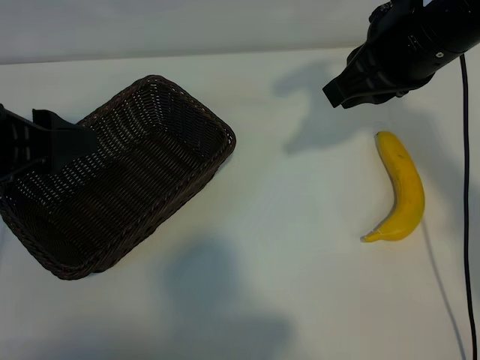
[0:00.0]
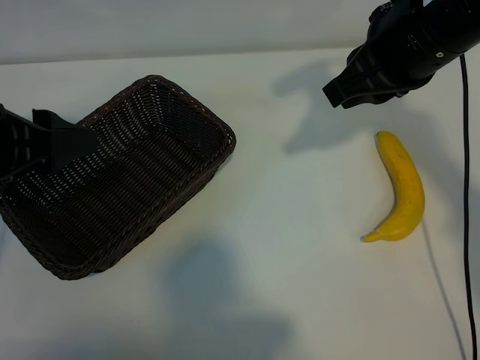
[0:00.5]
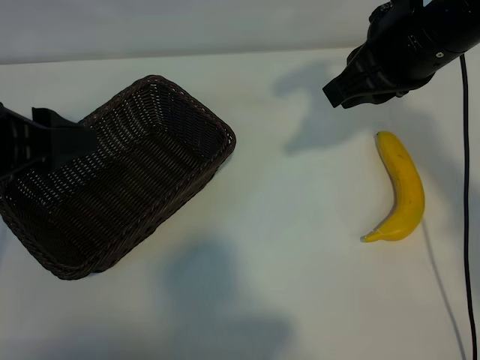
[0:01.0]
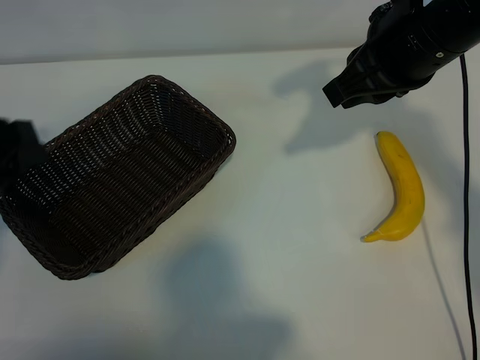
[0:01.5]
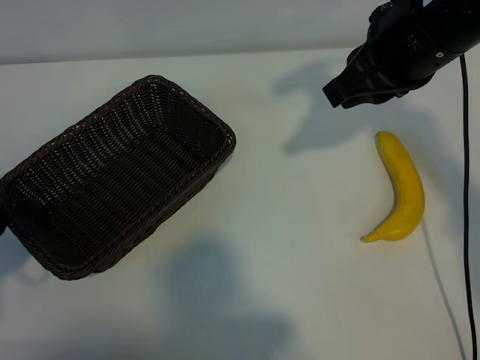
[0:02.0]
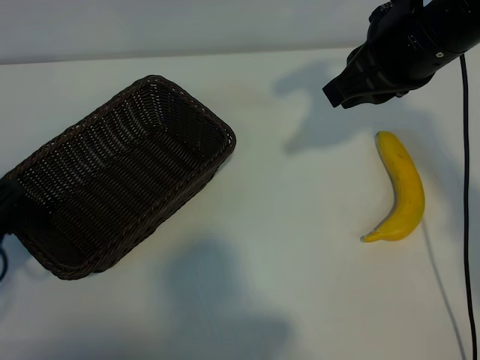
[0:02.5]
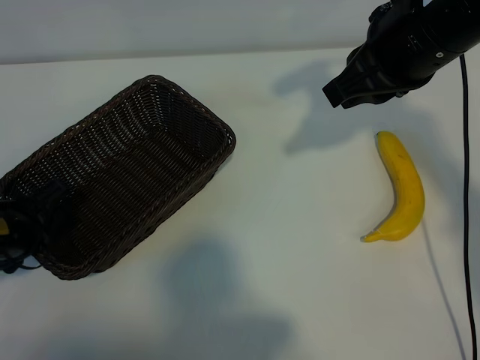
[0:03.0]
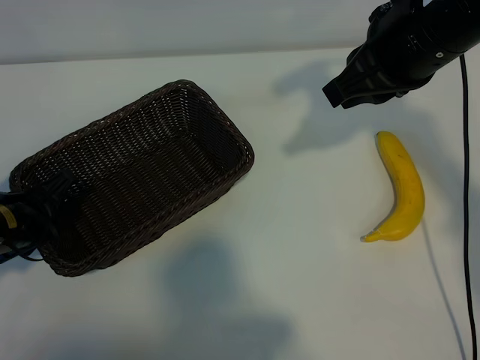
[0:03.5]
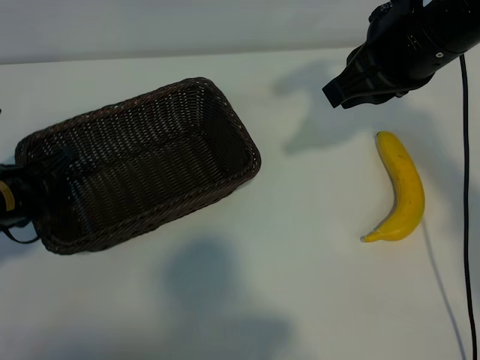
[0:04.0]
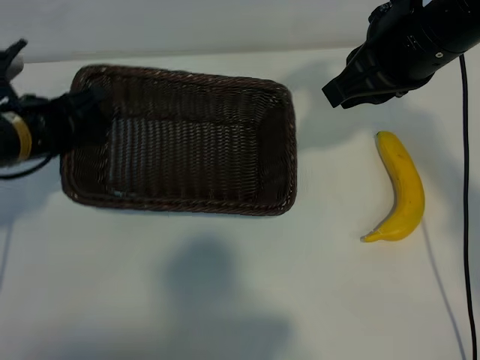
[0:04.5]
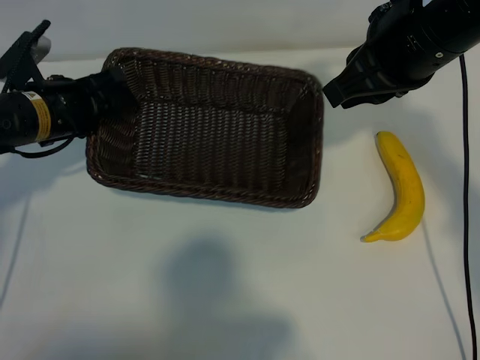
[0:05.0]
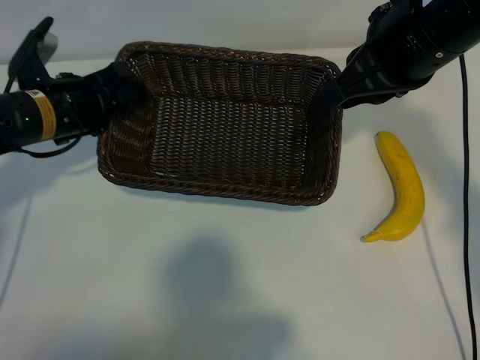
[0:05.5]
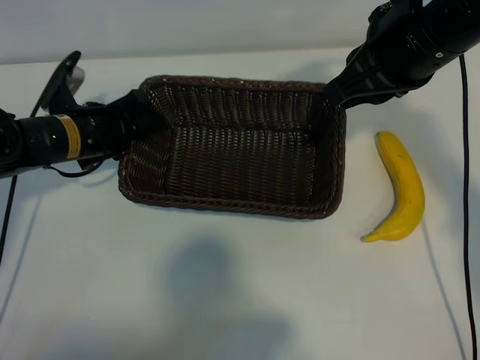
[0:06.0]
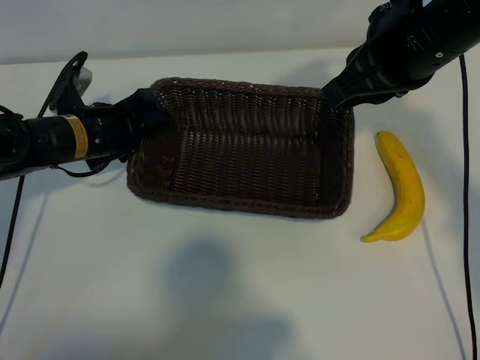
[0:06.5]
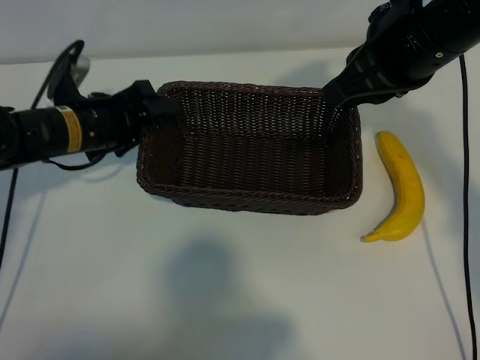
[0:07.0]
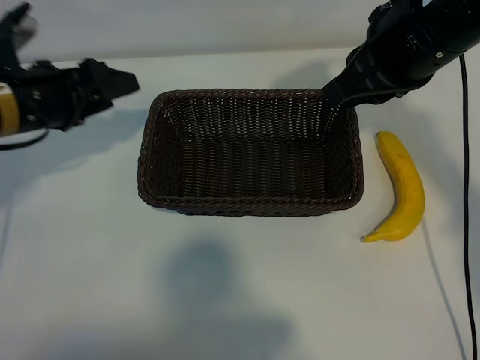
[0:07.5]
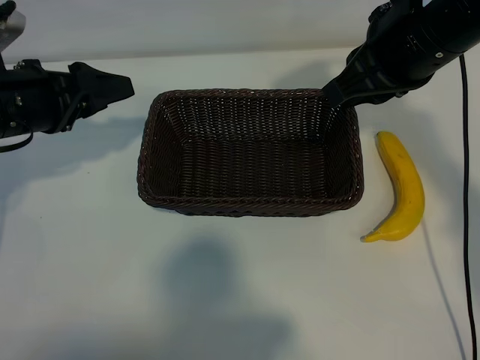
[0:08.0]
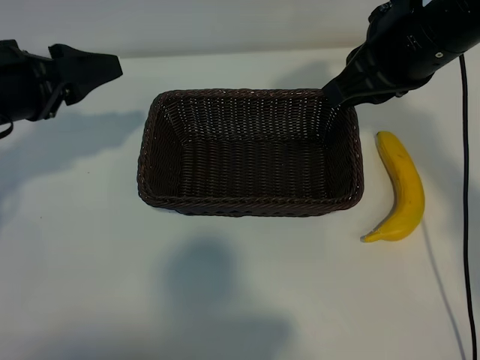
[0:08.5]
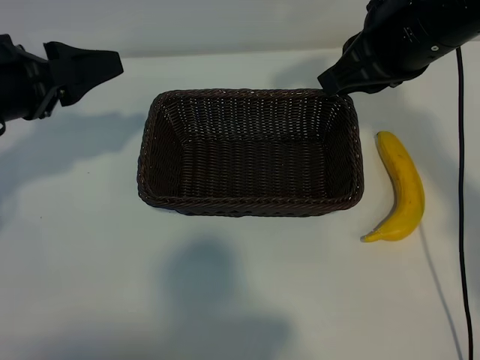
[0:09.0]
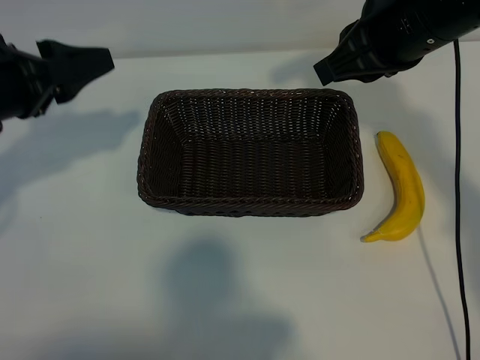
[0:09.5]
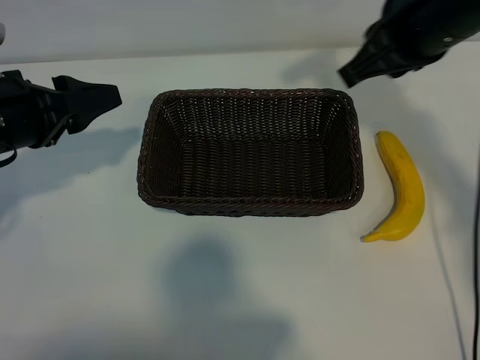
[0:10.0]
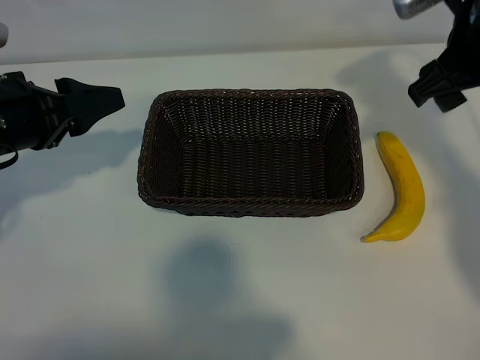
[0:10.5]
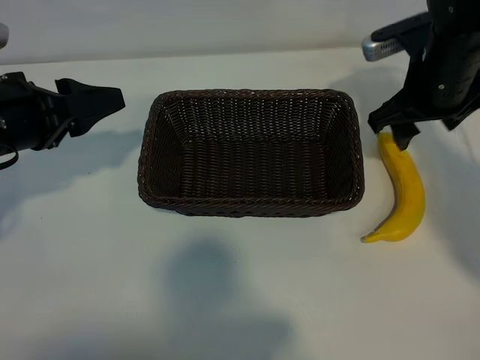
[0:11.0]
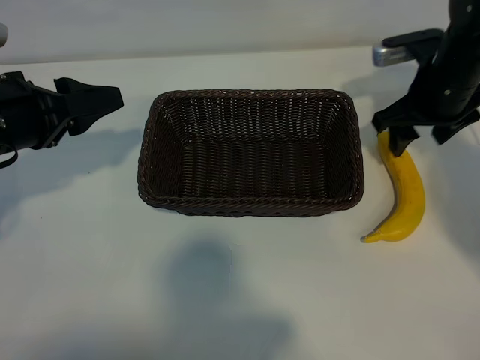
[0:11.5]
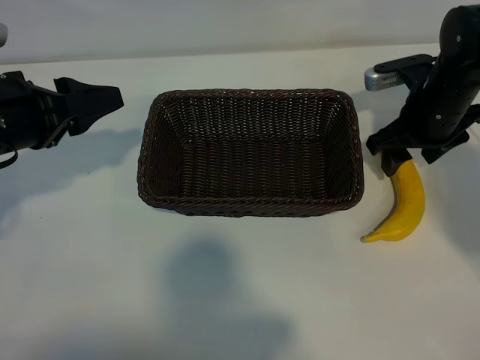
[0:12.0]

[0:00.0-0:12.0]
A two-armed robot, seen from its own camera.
Task of the whole recording: pick up the banana and put it into the basket.
Step, 0:01.0 to 0:03.0: Grasp the basket with the left gripper.
Step, 0:04.0 to 0:07.0: Place the basket in the center of the table with the left gripper.

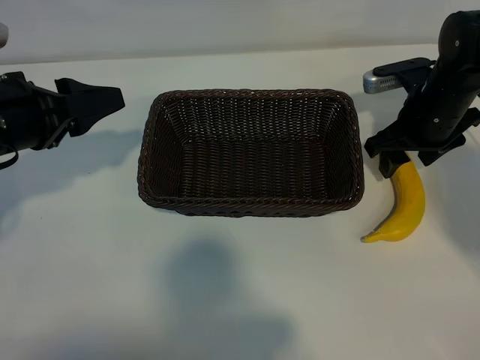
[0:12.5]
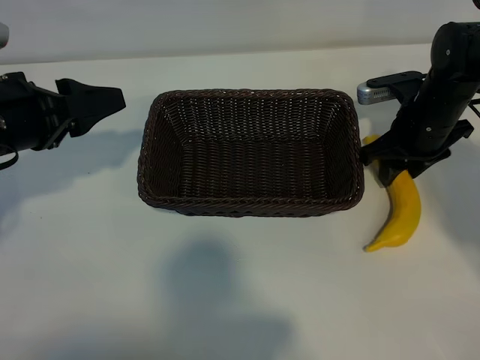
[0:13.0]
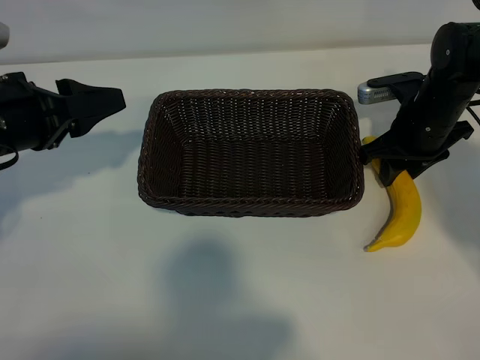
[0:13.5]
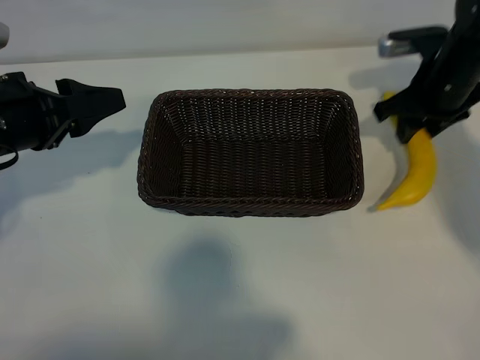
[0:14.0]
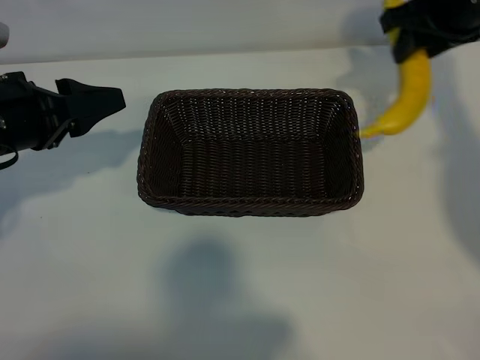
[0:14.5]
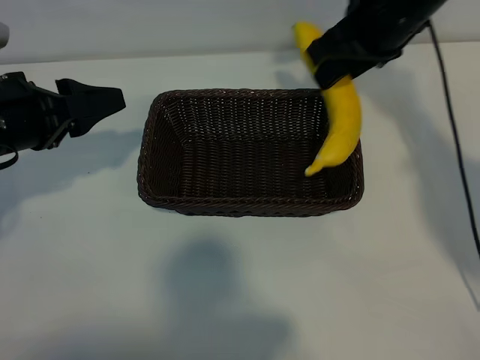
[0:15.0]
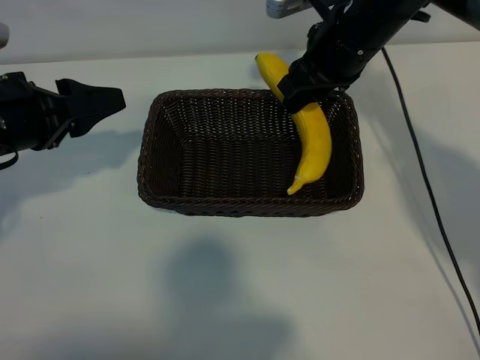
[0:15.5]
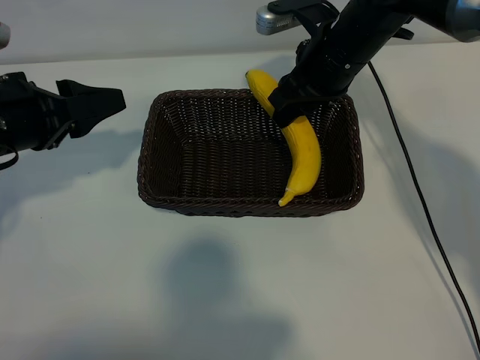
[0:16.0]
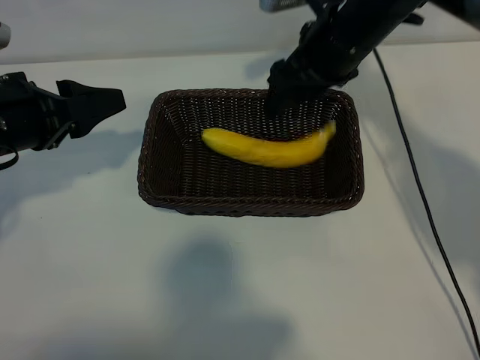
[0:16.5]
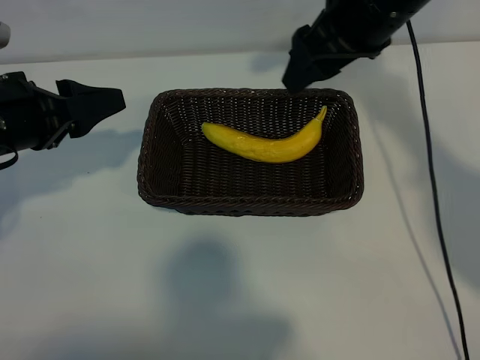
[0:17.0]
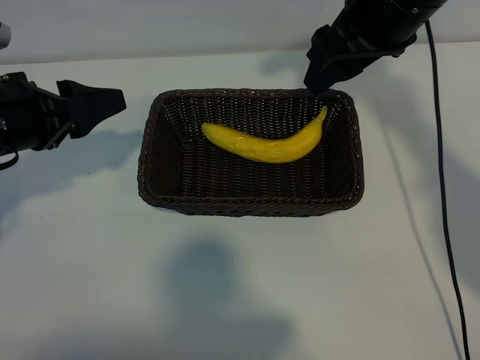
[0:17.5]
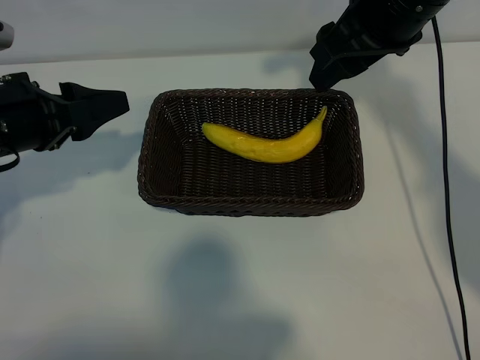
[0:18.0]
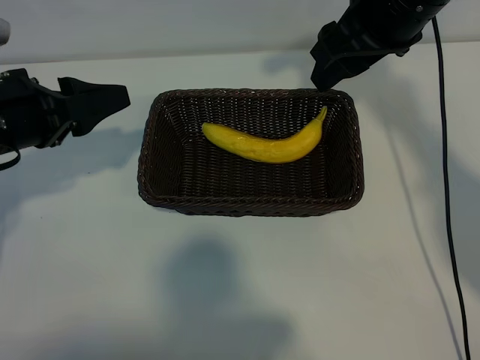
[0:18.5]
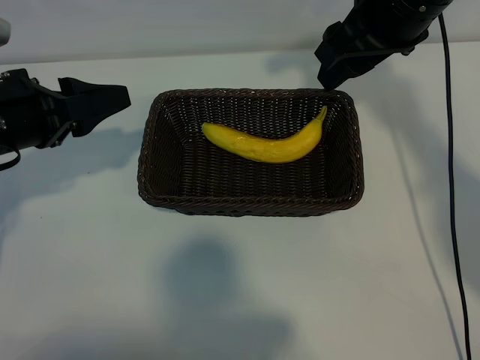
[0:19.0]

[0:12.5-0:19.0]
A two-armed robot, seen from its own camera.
Task of the whole recording: pick up the banana and put it into the basket.
Step, 0:13.5 to 0:16.0: Place the banana in the basket with right gripper.

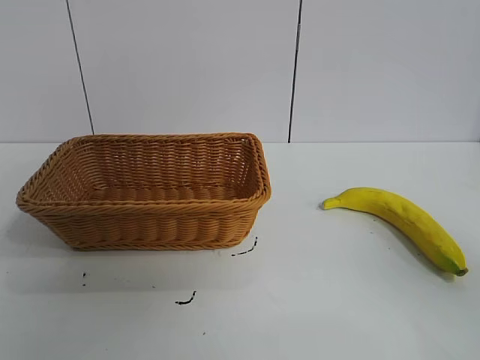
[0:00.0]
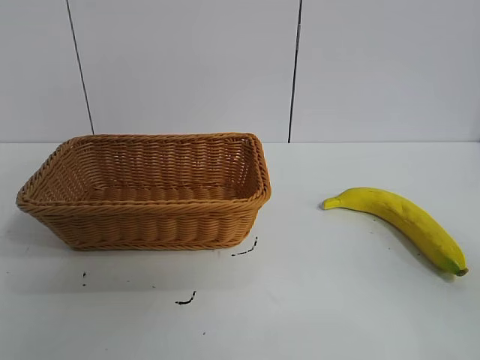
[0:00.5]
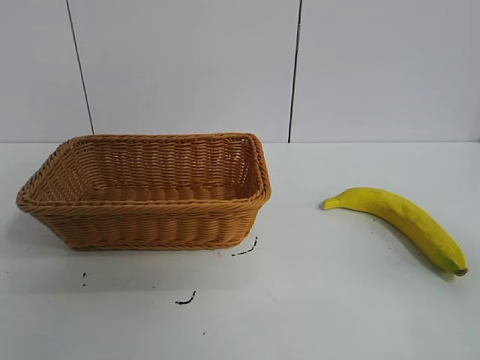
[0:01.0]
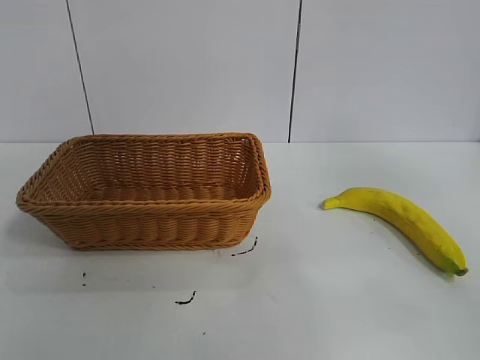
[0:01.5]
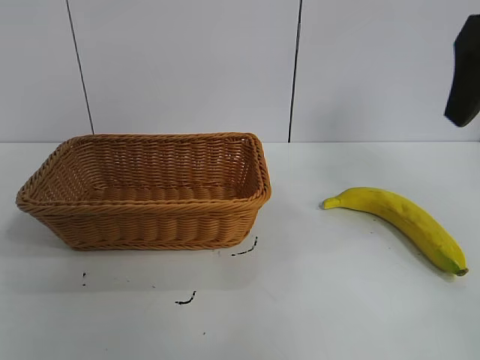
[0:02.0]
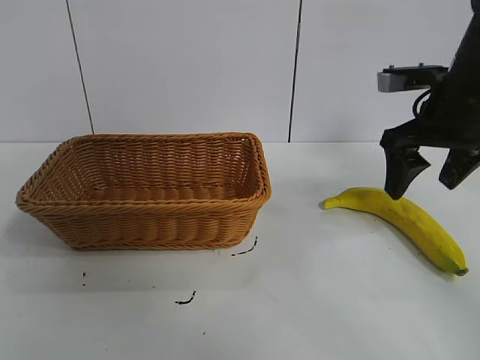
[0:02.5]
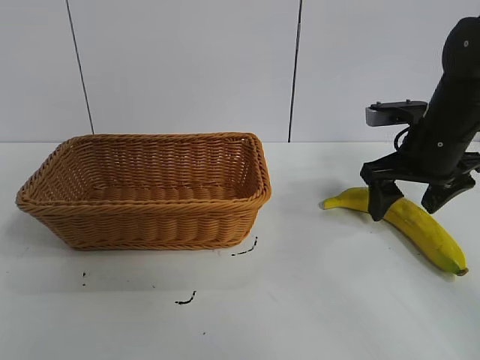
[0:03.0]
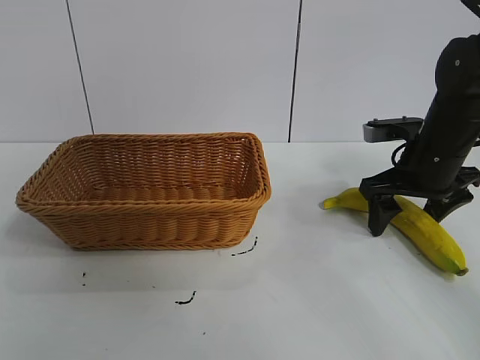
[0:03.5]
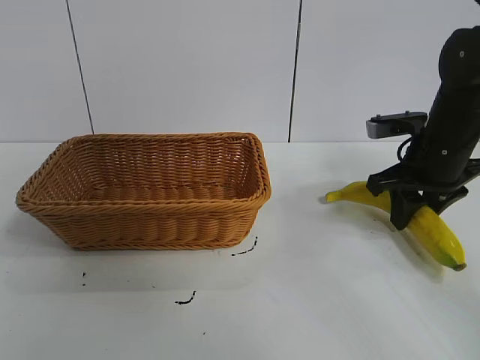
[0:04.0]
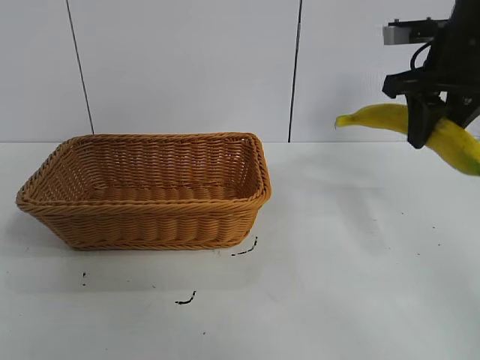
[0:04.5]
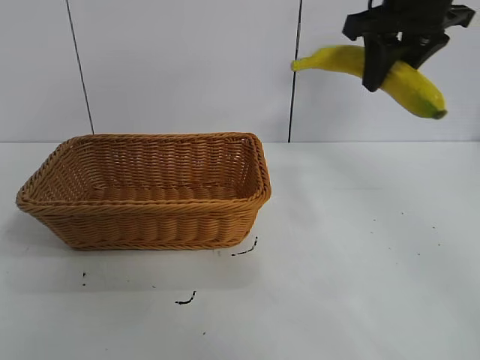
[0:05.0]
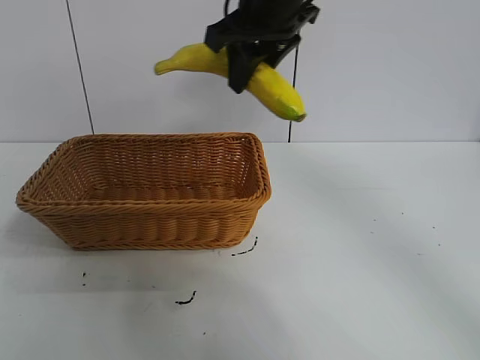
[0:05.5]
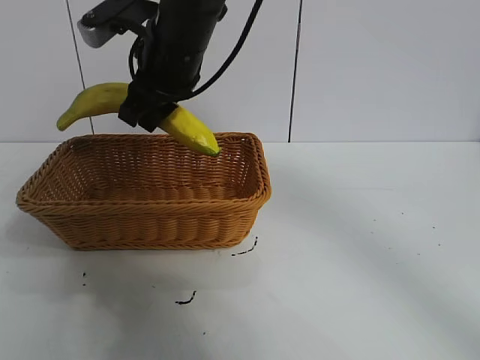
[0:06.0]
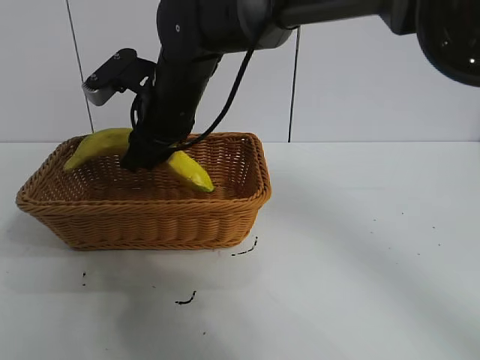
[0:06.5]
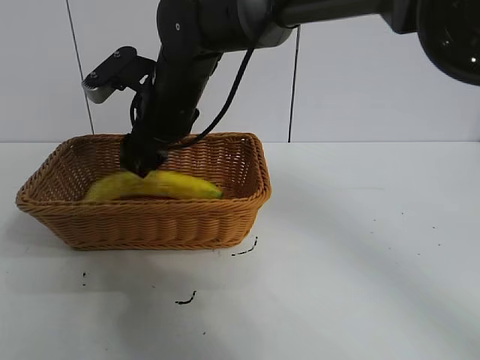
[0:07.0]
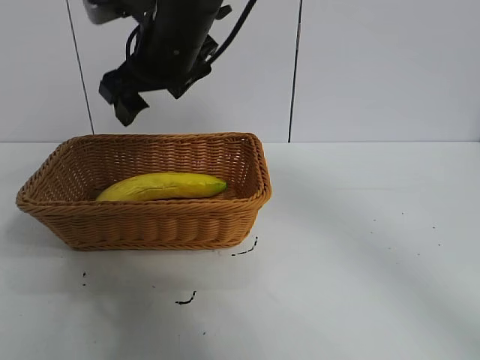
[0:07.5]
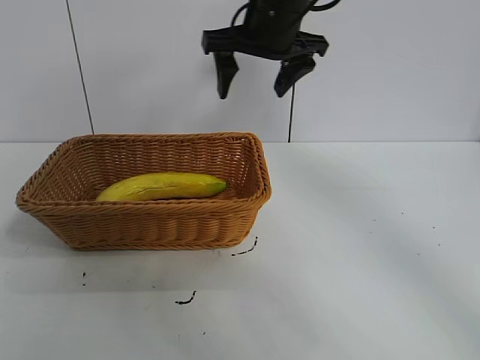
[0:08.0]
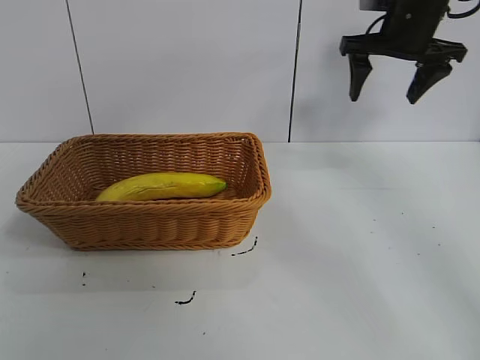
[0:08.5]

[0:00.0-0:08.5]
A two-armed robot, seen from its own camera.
Task of the whole recording: pick up the banana and put it into the basket.
Step, 0:01.0 to 0:03.5: Grasp the banana with right gripper.
Step, 0:04.0 to 0:07.0: Place the banana in the basket with right gripper.
